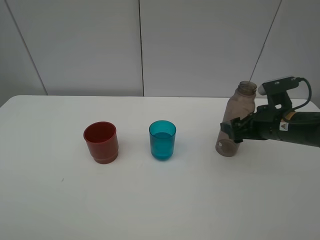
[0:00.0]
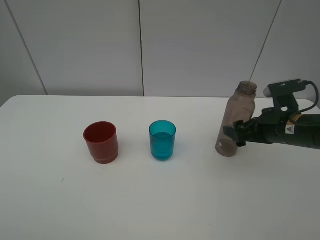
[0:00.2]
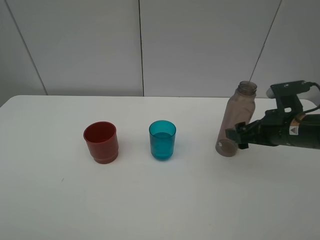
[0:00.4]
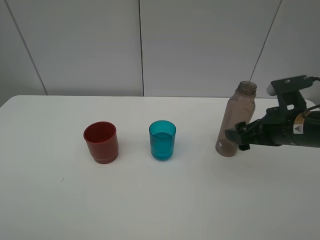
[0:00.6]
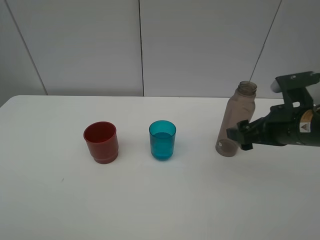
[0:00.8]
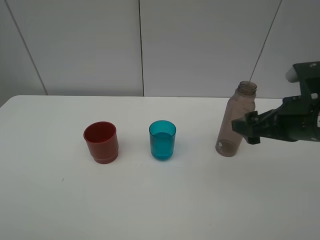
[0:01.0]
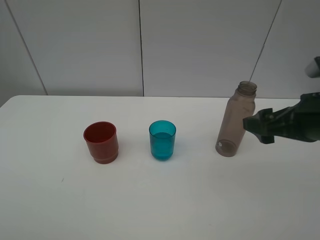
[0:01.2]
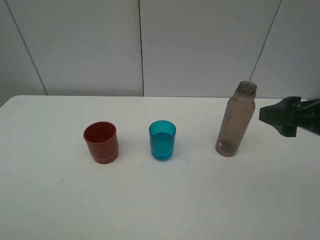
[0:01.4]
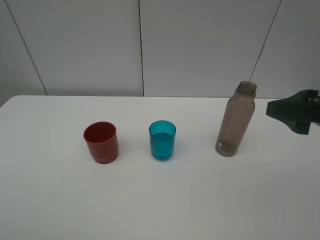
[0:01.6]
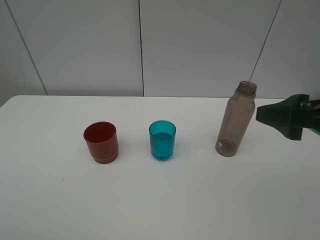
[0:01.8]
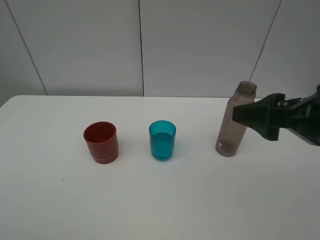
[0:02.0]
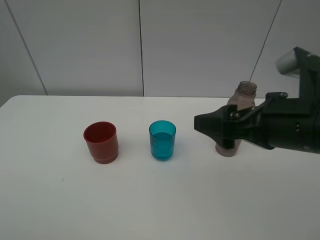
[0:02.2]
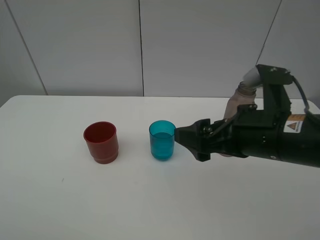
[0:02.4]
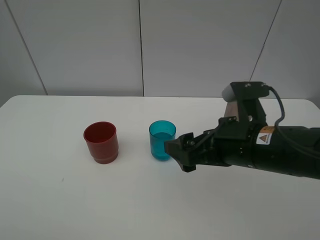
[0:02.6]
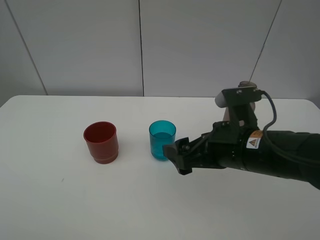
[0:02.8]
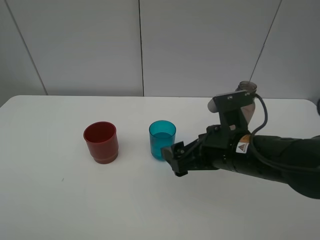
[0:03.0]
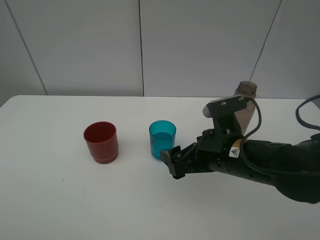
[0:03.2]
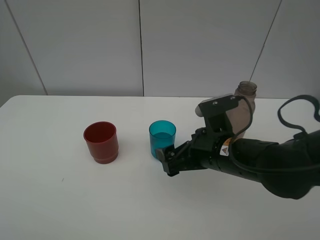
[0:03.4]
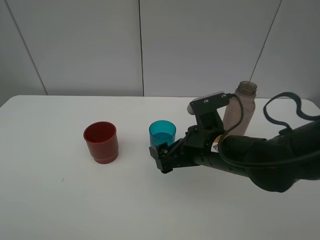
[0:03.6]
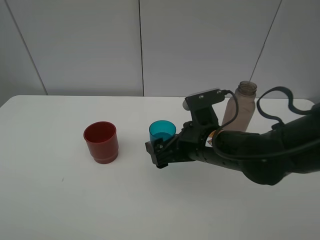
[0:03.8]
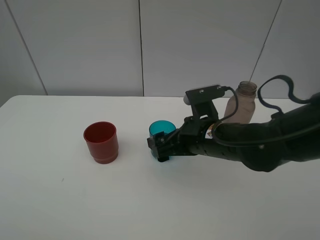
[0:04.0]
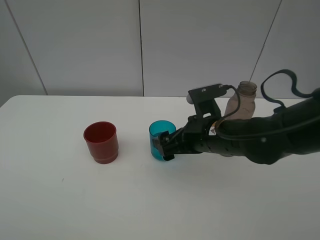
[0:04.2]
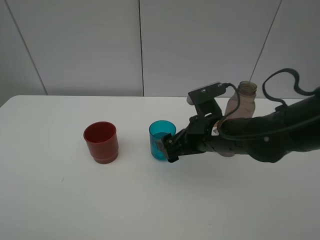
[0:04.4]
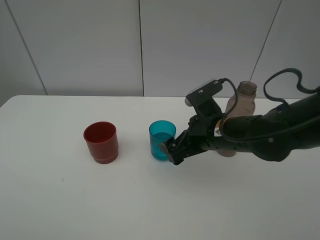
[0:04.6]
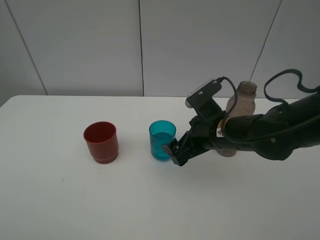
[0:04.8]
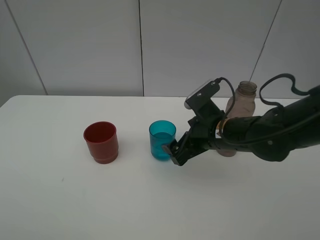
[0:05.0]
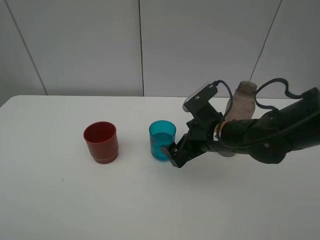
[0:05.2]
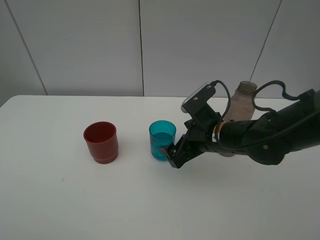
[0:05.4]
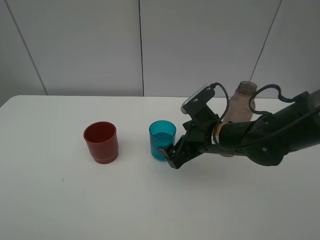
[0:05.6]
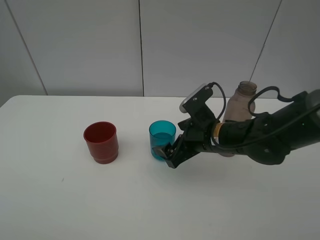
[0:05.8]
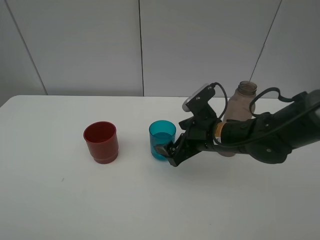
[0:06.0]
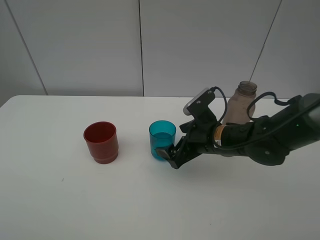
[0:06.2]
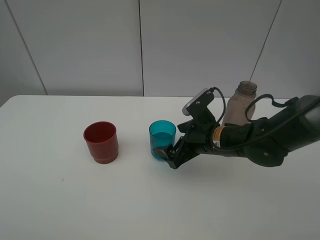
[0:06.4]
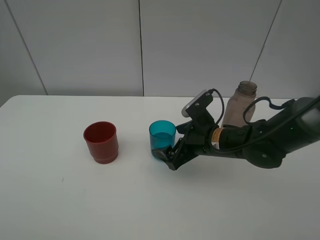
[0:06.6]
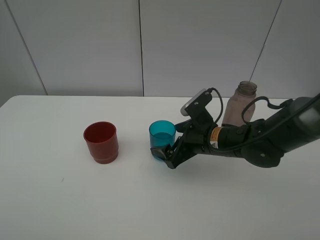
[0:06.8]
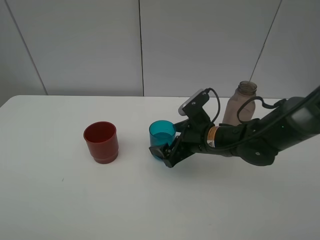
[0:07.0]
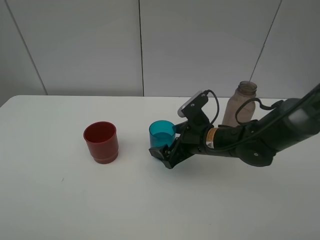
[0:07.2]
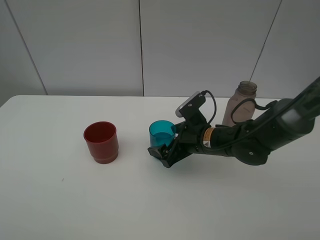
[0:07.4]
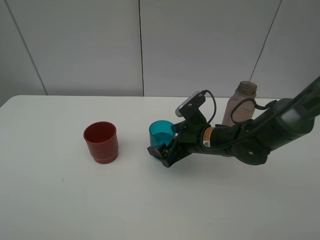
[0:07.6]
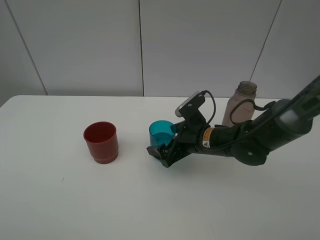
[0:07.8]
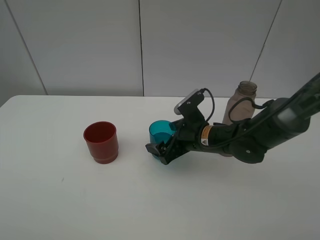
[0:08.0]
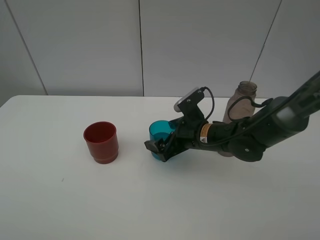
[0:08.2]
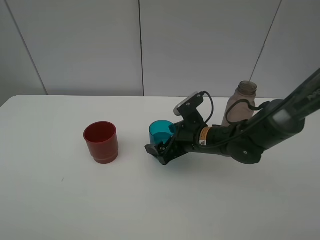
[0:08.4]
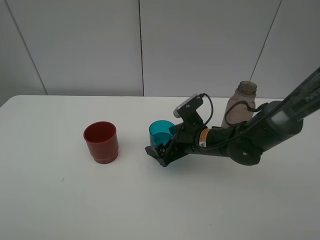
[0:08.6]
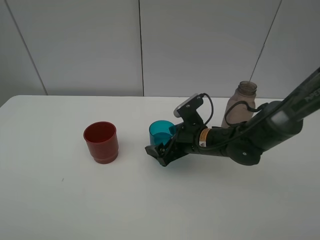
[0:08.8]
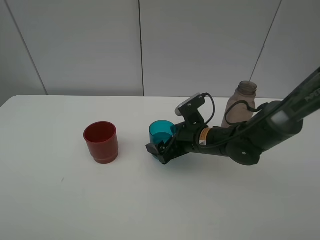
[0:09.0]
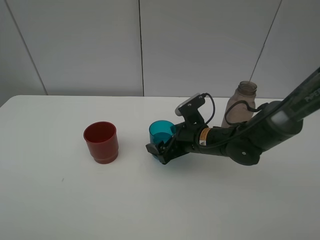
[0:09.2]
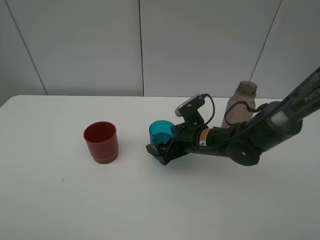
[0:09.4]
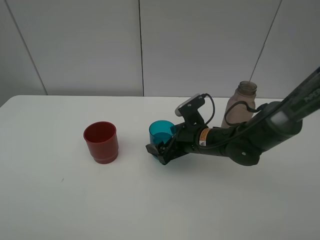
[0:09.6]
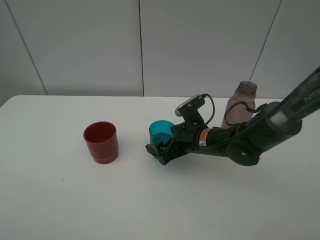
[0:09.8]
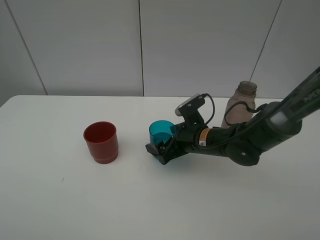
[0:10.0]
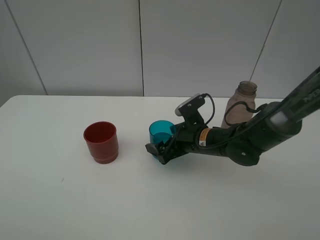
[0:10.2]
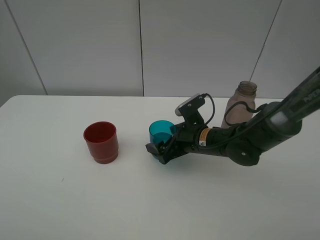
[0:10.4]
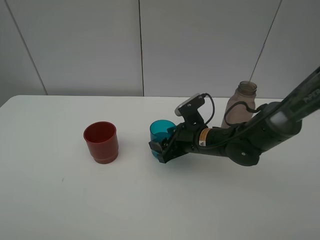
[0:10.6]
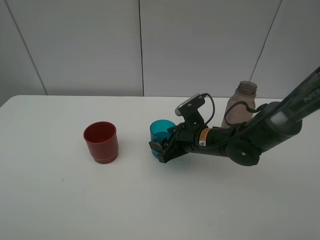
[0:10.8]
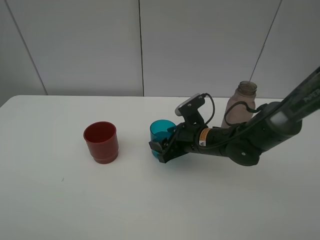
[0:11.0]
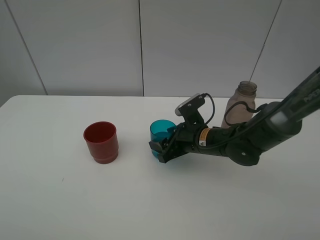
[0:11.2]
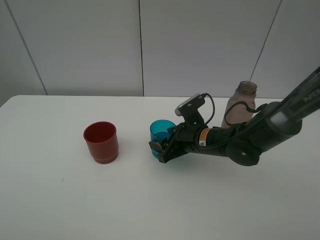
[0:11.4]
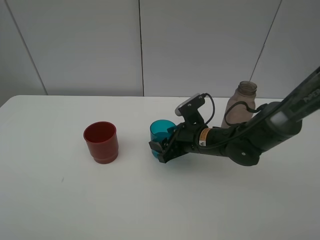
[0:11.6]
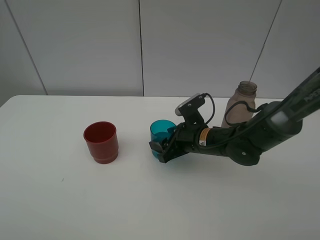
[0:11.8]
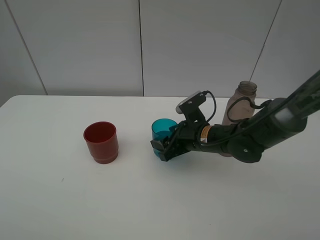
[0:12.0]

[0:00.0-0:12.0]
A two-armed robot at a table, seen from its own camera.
Task of the whole recording: pick up the bottle and pour water into the cup, then pick up the cup containing water and pour it into another cup.
Step, 0:00.0 to 0:10.4: Grasp the blue cup with the right gripper.
0:00.0 to 0:01.6: The right gripper goes approximately 20 cm backward and upward, and opens its fingers.
0:01.6 to 0:03.0: The right gripper travels to the left and downward by some 20 cm.
0:03.0 to 0:04.4: The right gripper goes about 5 cm forward.
0:04.4 to 0:06.0: The grippers make only small movements.
0:06.0 to 0:09.0: The grippers stay close to where they were, moving slightly.
0:09.0 to 0:10.4: The two grippers keep their place.
0:10.4 to 0:12.0: The right gripper closes up.

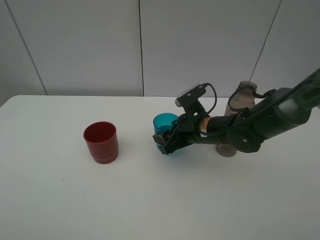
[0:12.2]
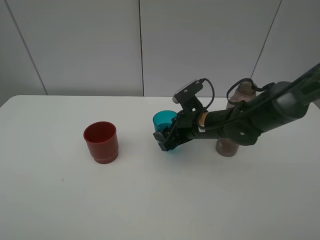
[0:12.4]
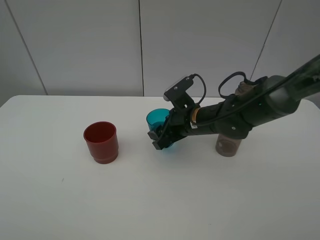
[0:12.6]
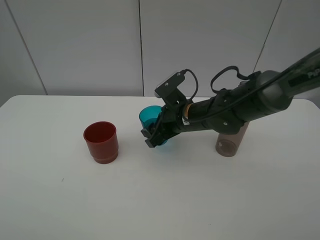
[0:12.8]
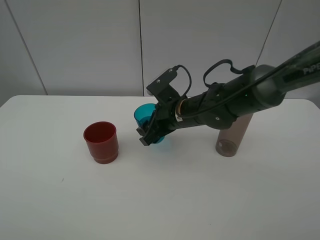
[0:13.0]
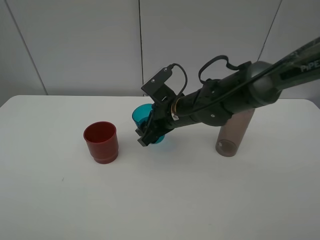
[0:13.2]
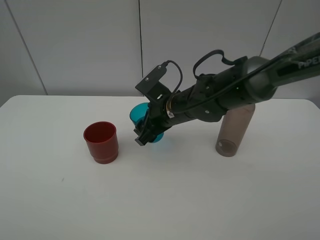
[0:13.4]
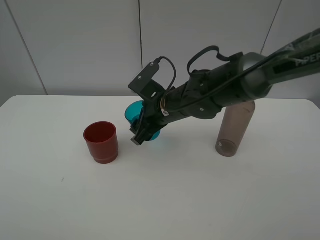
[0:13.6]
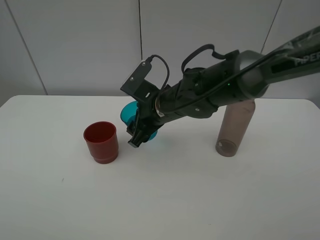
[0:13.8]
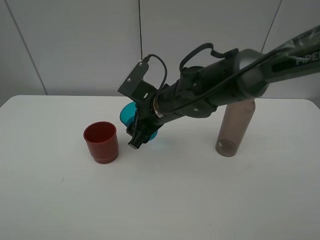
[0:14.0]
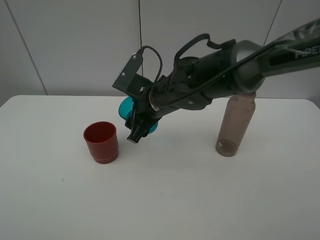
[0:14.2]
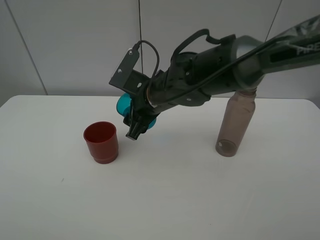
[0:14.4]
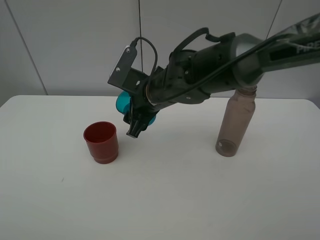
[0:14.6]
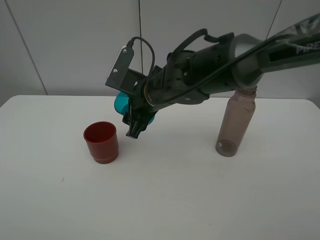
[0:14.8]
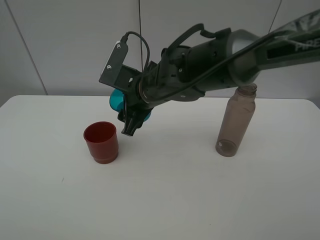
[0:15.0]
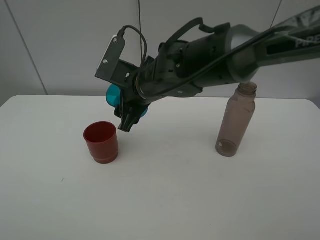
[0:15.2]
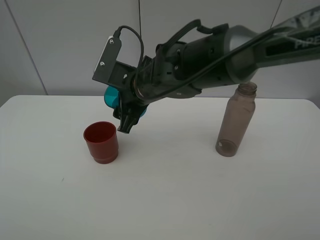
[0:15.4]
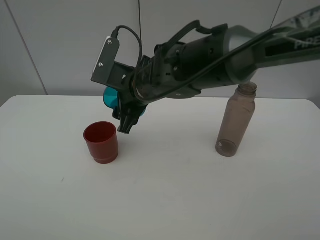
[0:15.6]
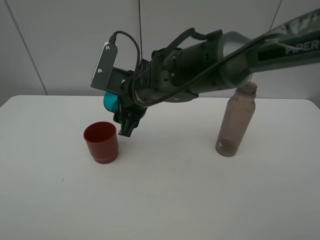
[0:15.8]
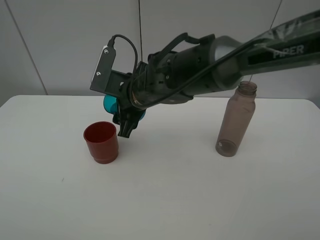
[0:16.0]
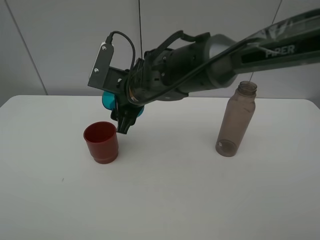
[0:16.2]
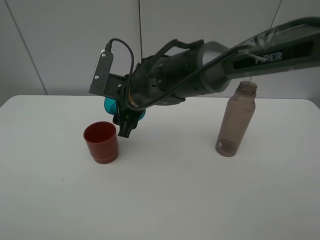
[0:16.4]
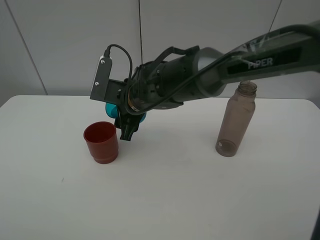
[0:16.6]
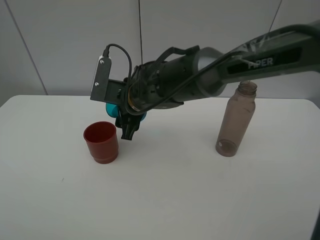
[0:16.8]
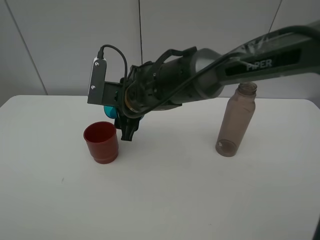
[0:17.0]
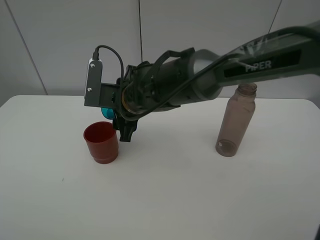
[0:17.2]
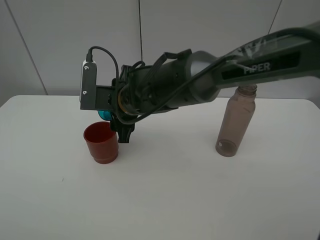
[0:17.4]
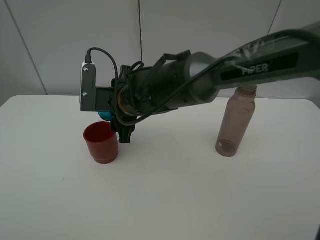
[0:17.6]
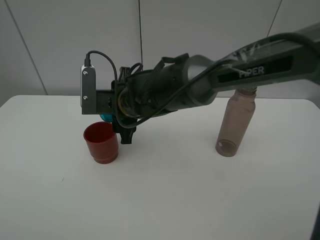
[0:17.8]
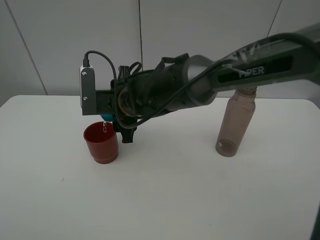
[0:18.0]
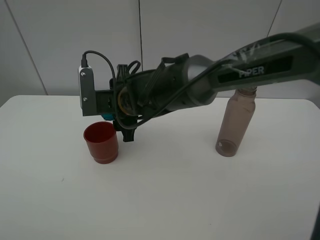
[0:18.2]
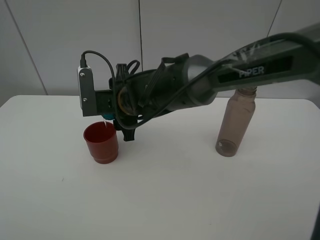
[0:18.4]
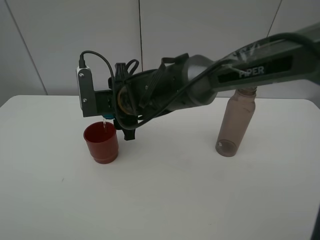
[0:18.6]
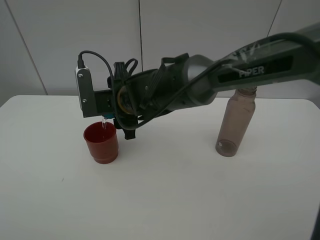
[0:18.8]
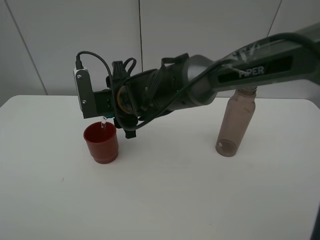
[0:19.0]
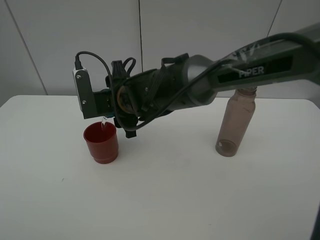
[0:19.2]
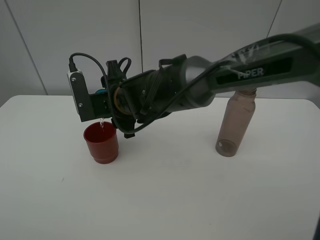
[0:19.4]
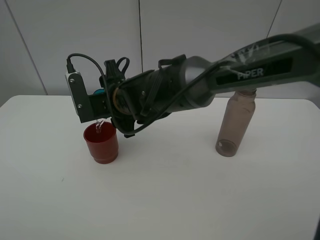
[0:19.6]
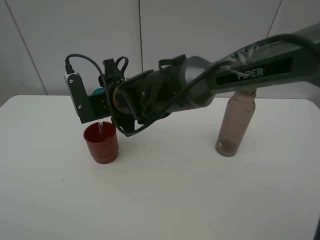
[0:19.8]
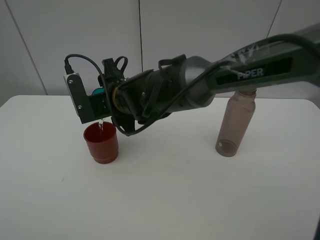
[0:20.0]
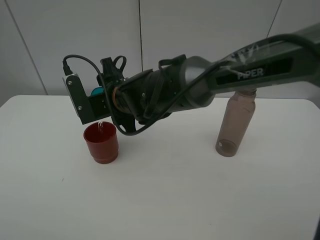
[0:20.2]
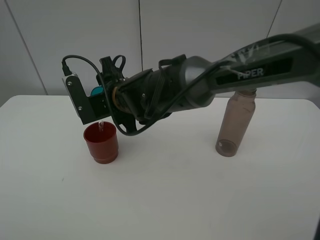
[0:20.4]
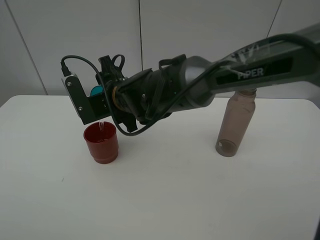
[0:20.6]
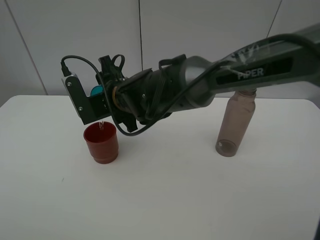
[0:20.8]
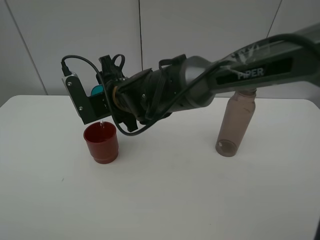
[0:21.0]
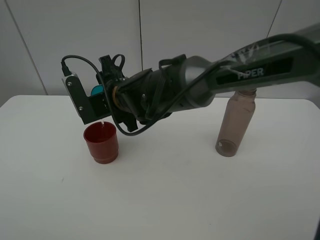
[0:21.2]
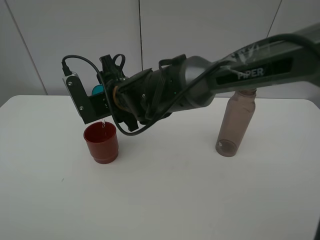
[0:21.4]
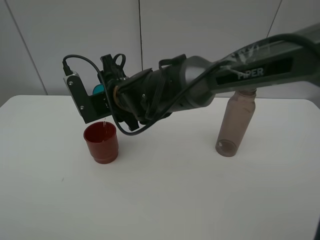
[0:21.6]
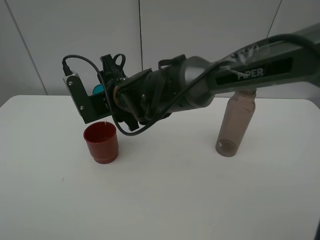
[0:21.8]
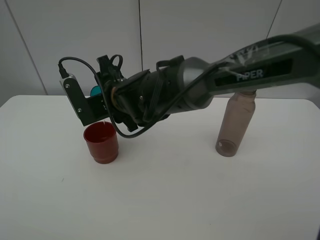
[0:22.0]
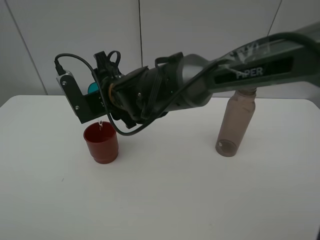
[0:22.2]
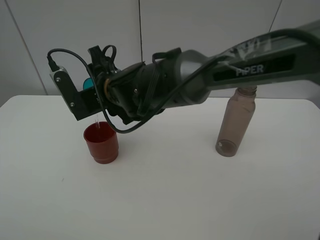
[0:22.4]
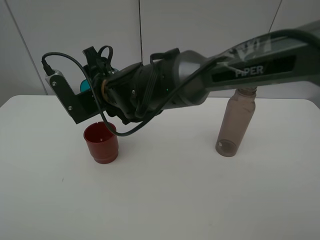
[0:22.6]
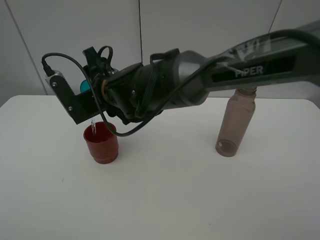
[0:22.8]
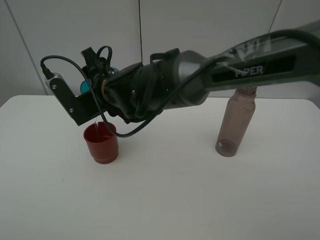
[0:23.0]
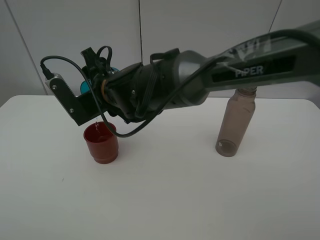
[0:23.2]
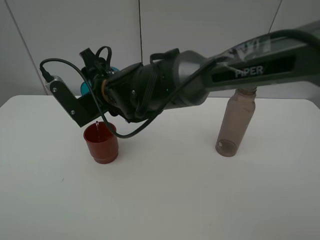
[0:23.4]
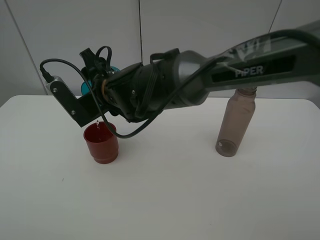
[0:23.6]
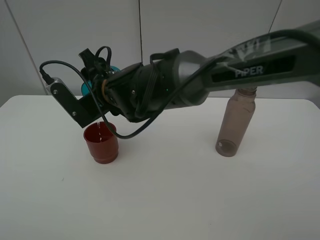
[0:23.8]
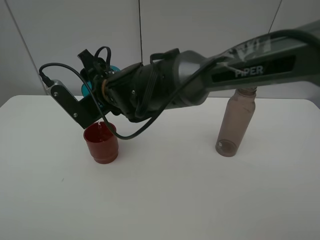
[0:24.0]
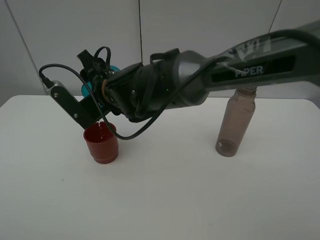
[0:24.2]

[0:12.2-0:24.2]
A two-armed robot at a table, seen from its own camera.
Task of the whole recording: pick up the bottle and pour water into the cup, then pick up the cup containing water and pour it into another cup.
0:12.2 to 0:13.8: The right gripper moves to the left and upward, approximately 10 cm.
0:13.8 to 0:15.2: The right gripper shifts by approximately 5 cm.
0:15.2 to 0:16.6: The grippers stay close to where they were, moving slightly.
0:16.6 to 0:18.2: The grippers move only a little.
0:18.2 to 0:19.8: The grippers make only small movements.
0:19.8 to 0:22.6: The grippers make only small movements.
0:22.6 to 0:24.2: There are only small adjustments of the grippers.
